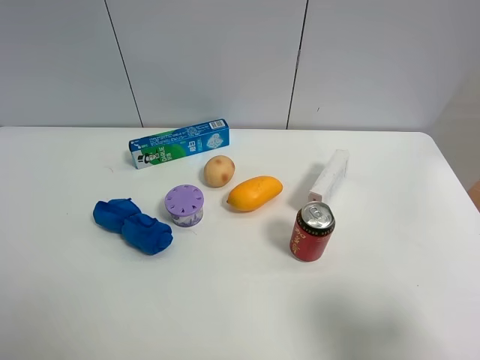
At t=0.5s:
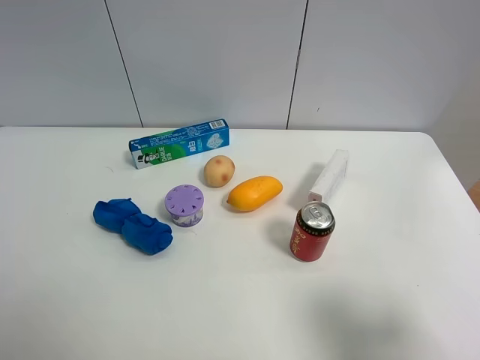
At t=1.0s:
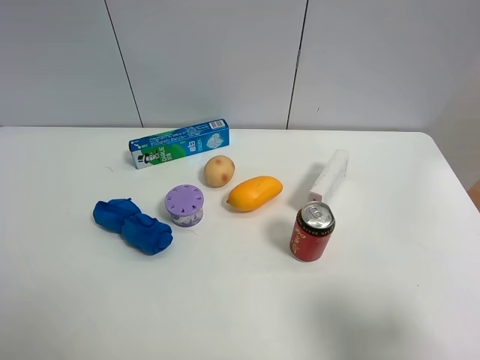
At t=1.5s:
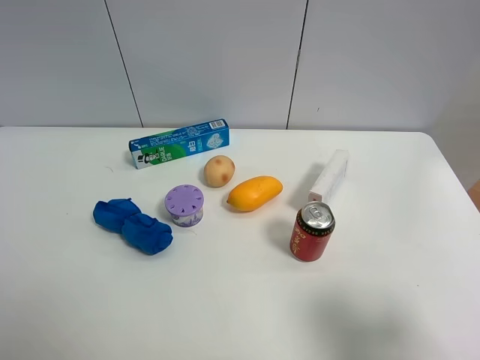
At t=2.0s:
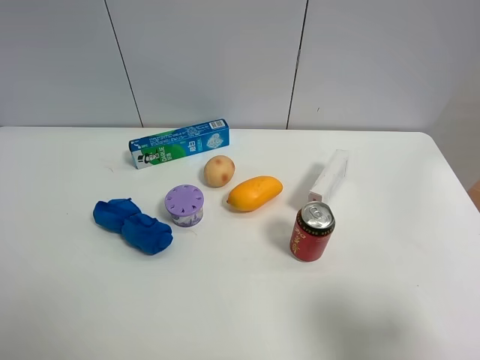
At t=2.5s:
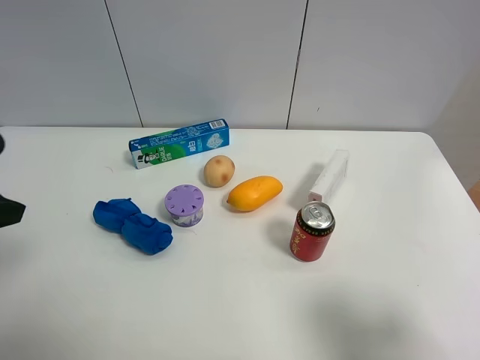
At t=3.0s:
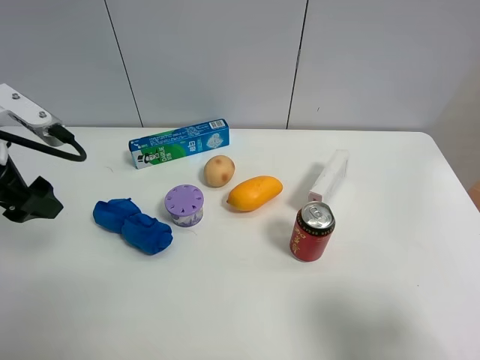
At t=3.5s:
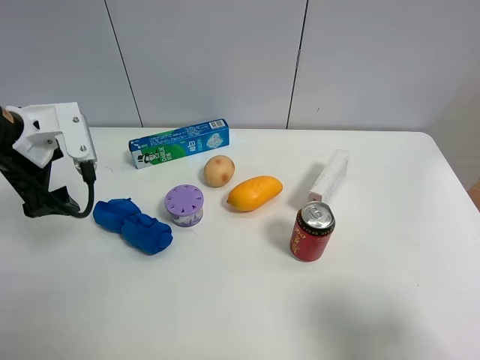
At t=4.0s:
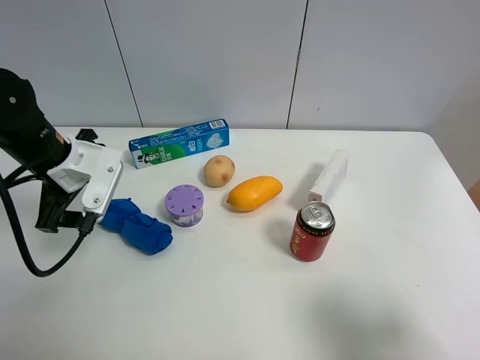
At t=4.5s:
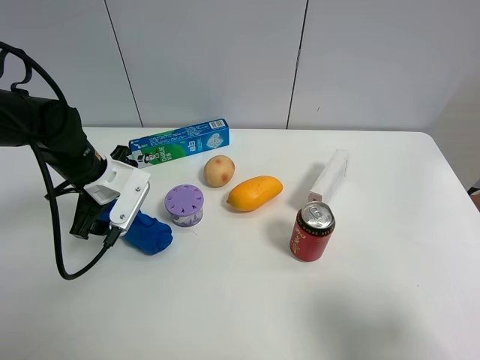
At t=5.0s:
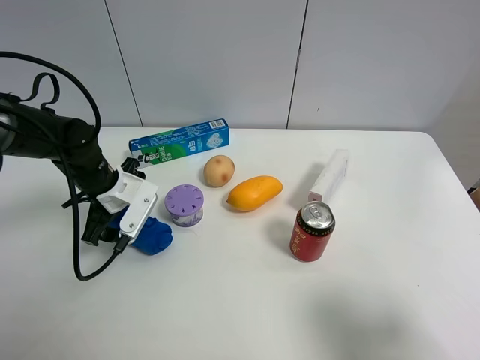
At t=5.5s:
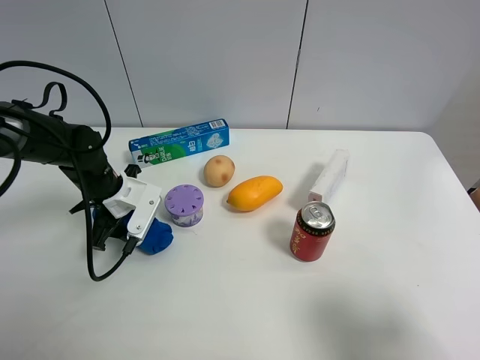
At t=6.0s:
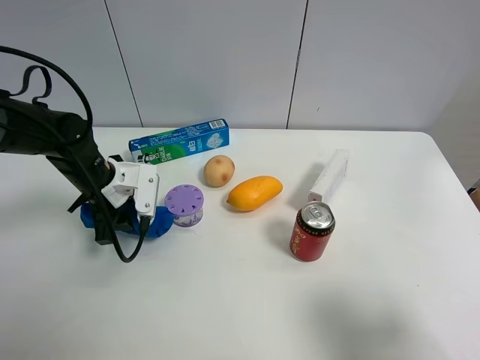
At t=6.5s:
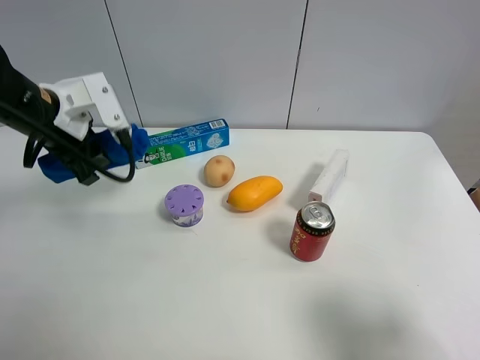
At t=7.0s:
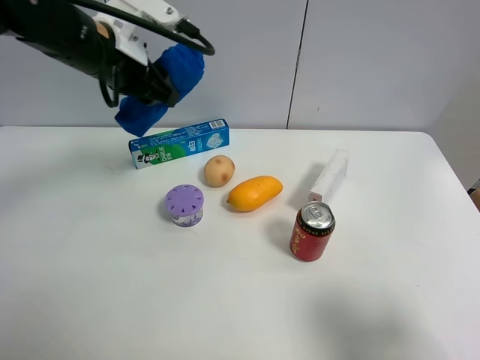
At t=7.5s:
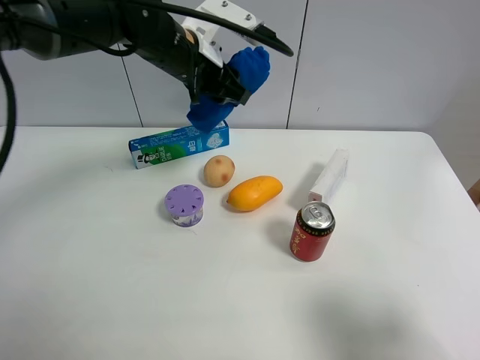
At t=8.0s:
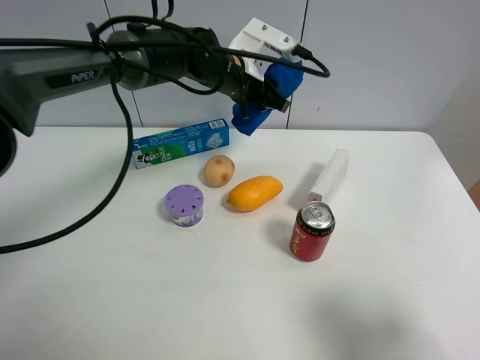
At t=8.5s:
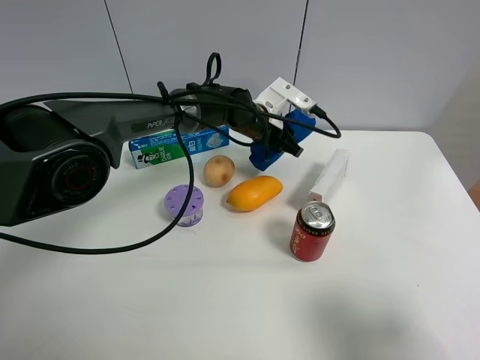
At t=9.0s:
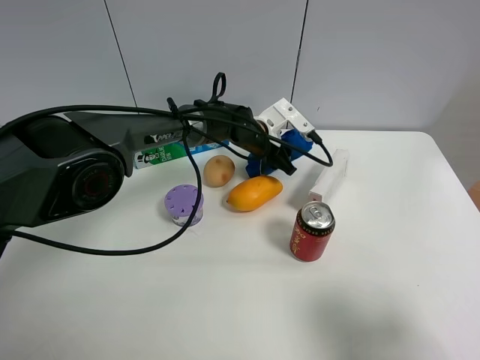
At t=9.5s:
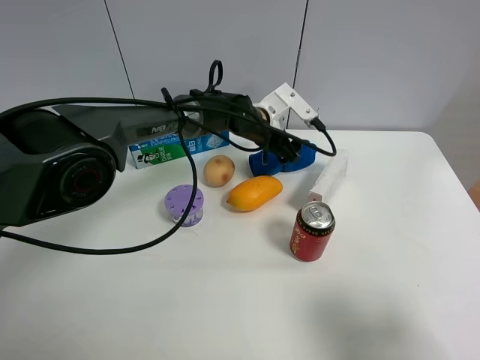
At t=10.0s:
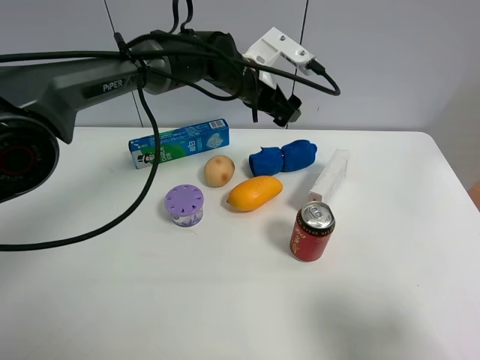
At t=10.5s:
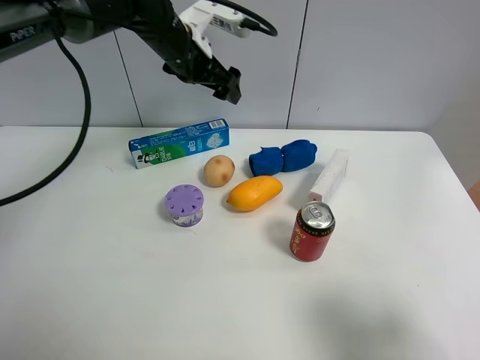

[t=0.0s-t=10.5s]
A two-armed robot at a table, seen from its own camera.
Task of the whole recording: the gripper move the object.
Step, t=0.0s to t=5.5s: Grasp the blue towel with the left gripper.
Step, t=6.0s to t=9.5s: Place the blue towel on the table with the left gripper.
t=2.0s to t=4.0s: The left gripper heads forward and downward, covering approximately 30 cm.
t=4.0s to t=6.5s: The left gripper goes about 5 cm upward, and closes up.
t=6.5s to t=8.5s: The left gripper travels to the right, forward and downward by roughly 30 cm.
t=8.5s to t=10.5s: The left gripper travels upward and to the left by about 20 cm, and opens its fingers.

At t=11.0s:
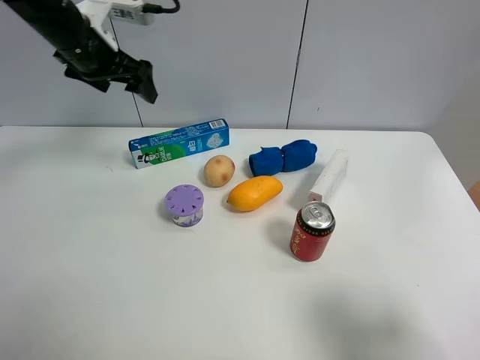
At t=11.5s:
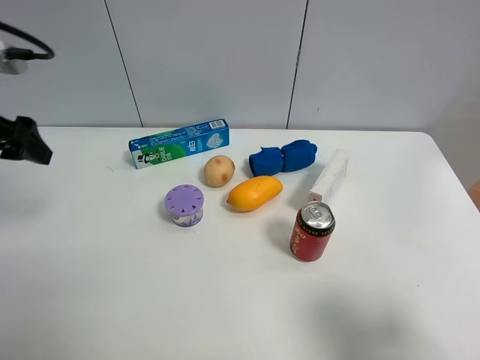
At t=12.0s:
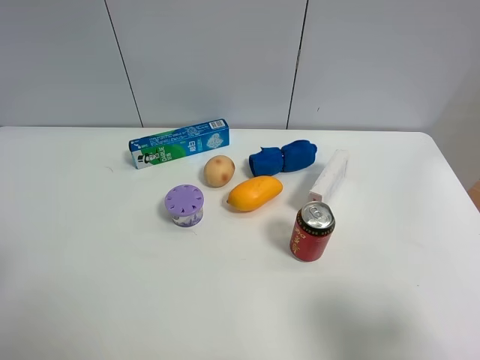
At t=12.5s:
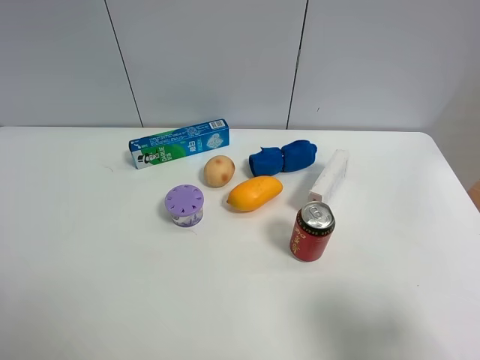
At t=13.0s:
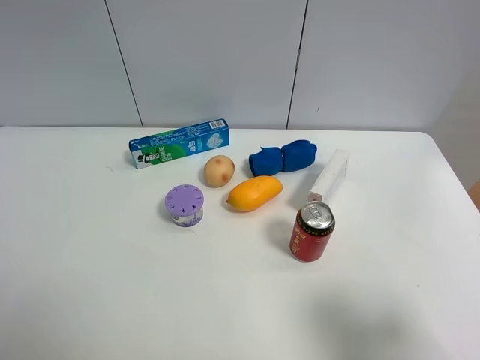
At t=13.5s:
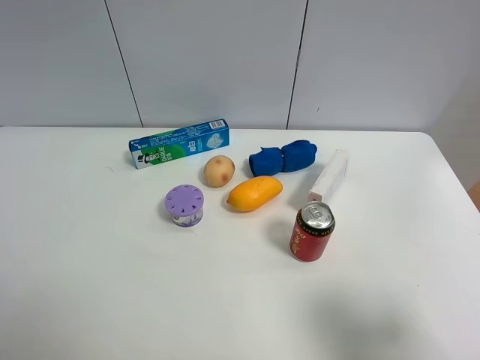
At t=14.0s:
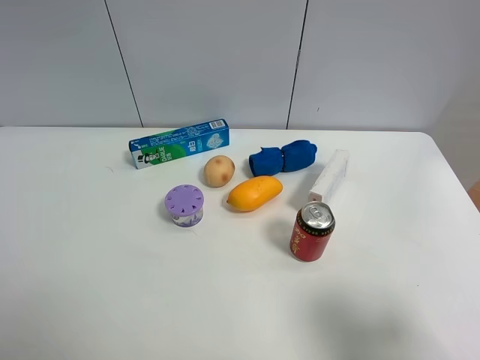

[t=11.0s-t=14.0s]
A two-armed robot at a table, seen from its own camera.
Task of the whole recording: the gripper move the object.
t=11.0s to t=12.5s: The left gripper shifts some 40 cm backward.

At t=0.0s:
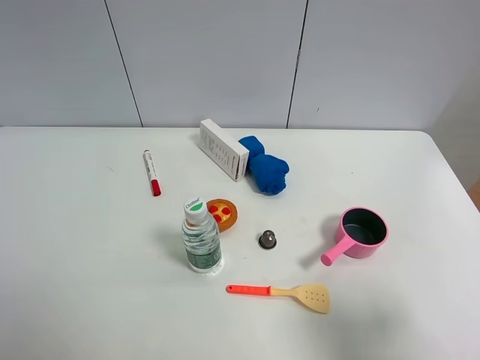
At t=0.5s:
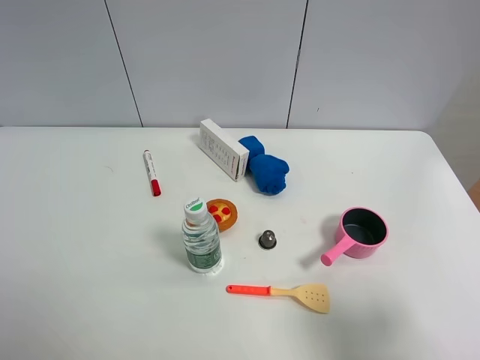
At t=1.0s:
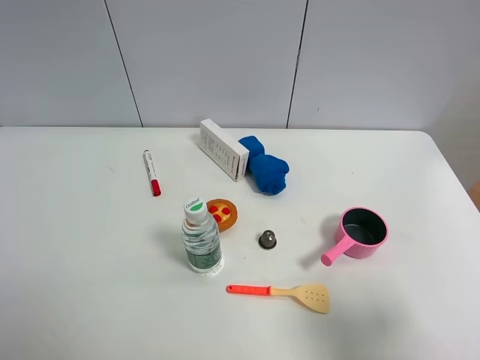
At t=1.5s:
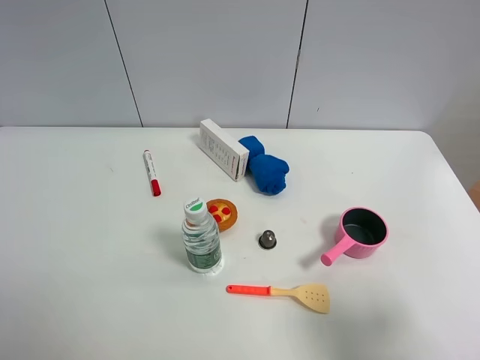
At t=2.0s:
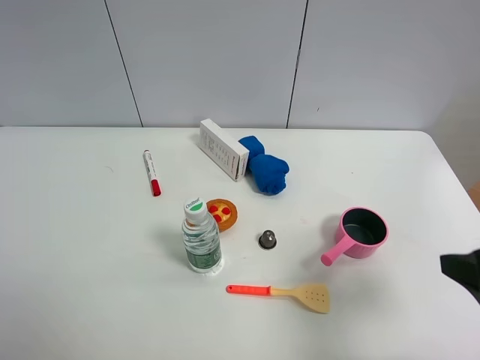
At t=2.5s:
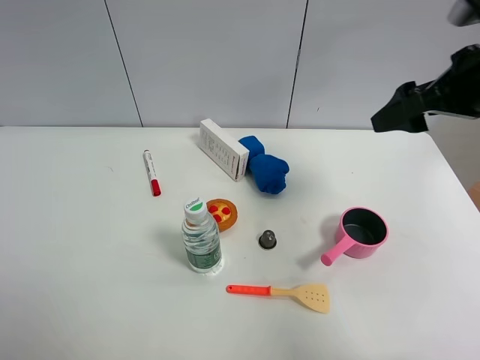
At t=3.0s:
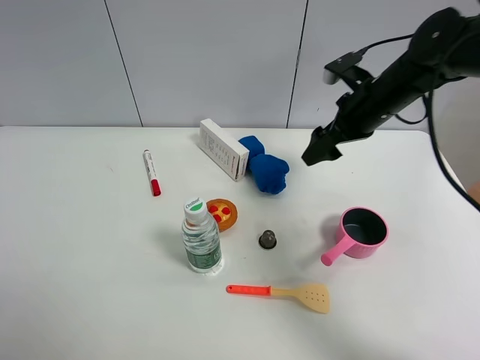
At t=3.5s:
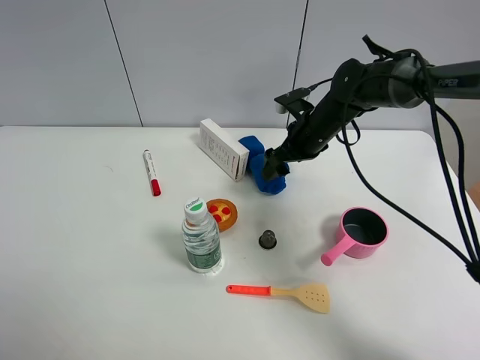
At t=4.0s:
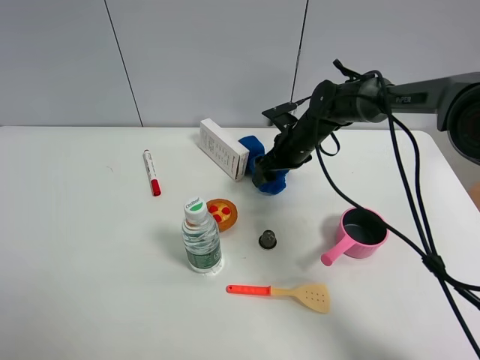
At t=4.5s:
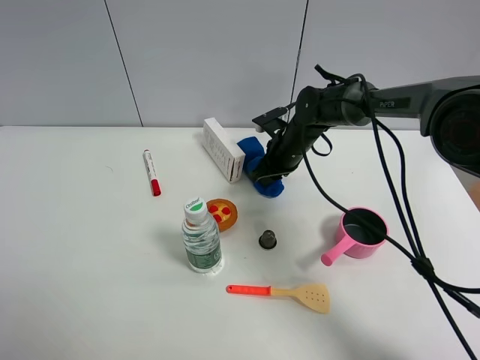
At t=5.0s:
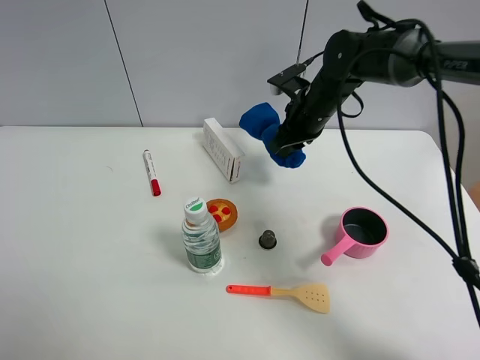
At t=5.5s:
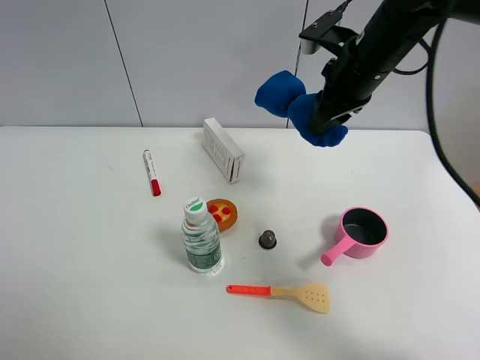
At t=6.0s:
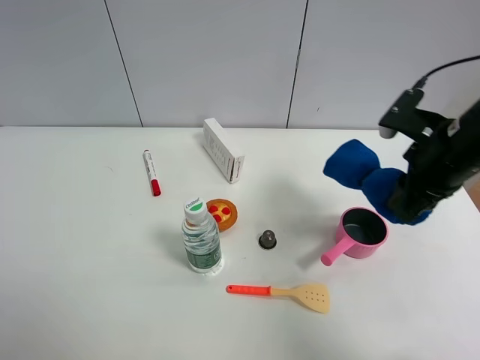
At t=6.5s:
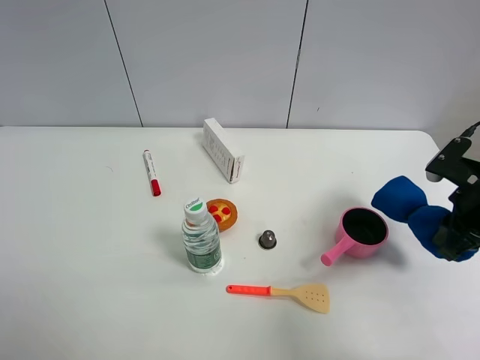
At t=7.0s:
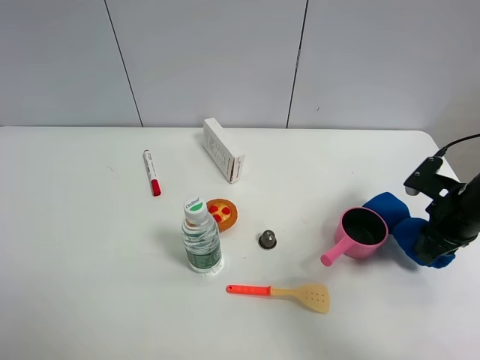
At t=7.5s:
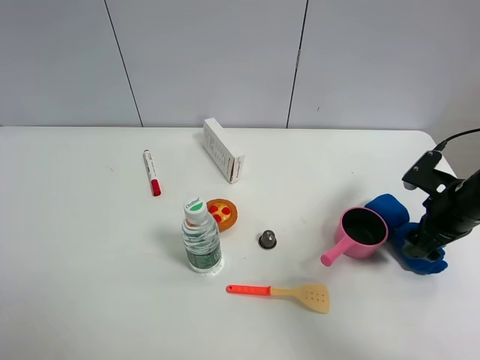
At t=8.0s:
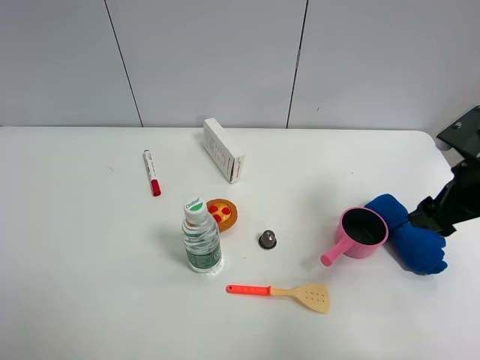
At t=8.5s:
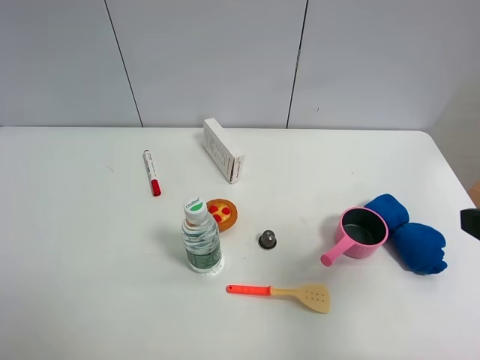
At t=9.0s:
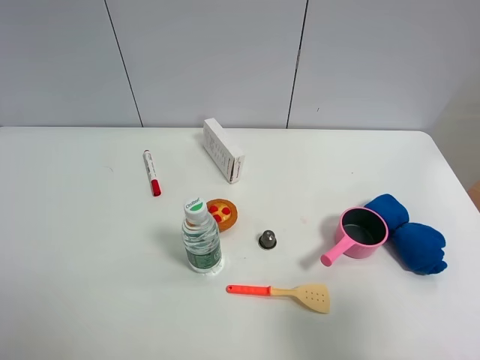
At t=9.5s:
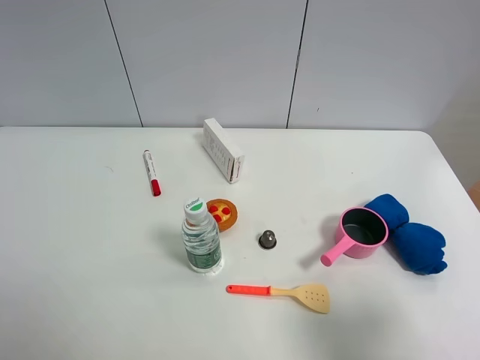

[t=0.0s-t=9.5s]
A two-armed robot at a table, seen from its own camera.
Task of the whole recording: the gripper move the object.
Step, t=0.0s to t=4.0s: Grasp the blue towel with the right gripper.
Step, t=4.5s to t=7.5s: Place the blue towel on the table with the right gripper.
t=0.0s to t=2.0s: The right gripper heads forward, covering about 10 cm.
t=2.0s to t=4.0s: The right gripper shifts some 40 cm forward, to the left and downward.
t=4.0s to t=5.5s: The right gripper travels upward and backward by about 20 cm, and closes.
t=5.5s to t=7.5s: The right gripper is displaced to the right, downward and backward by roughly 25 cm, and opens its fingers.
t=7.5s to t=9.5s: The right gripper is displaced backward and upward by some 30 cm.

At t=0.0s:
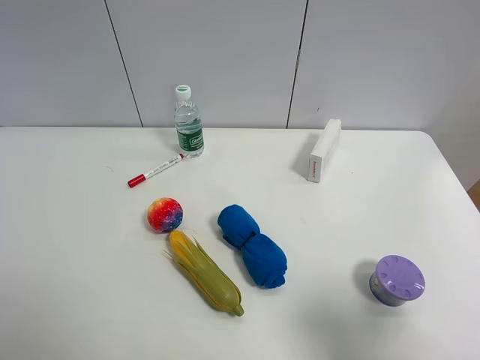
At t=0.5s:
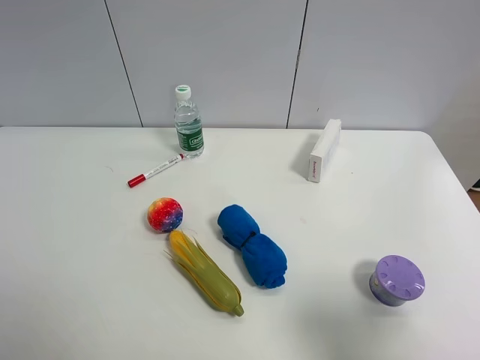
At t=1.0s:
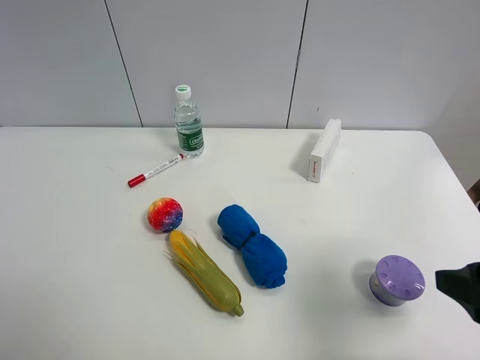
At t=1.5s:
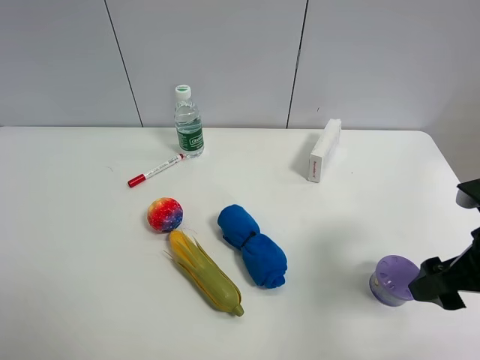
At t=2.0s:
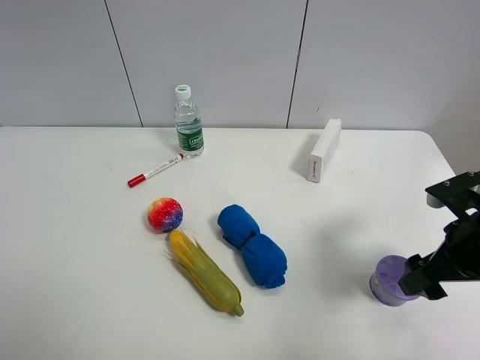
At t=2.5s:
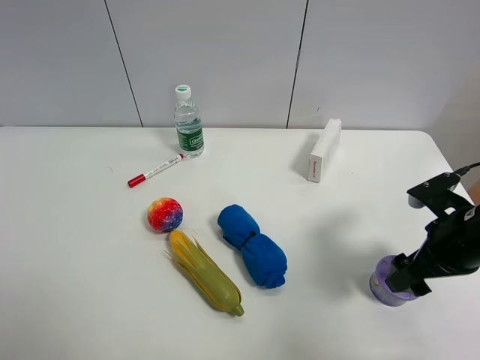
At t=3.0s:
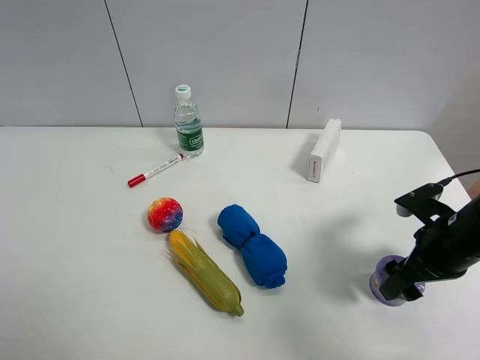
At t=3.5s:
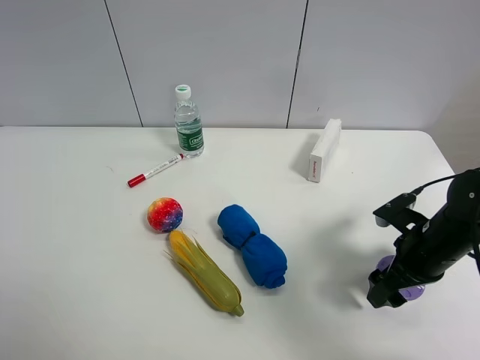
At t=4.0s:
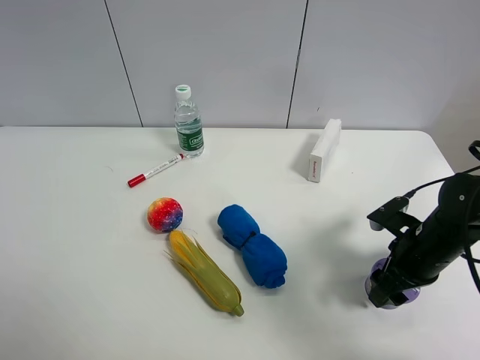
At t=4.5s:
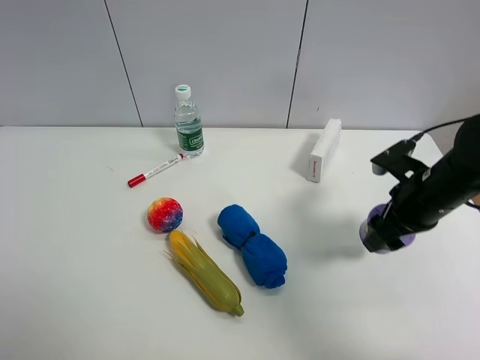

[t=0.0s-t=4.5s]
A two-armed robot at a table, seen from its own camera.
Task of the whole recording: the gripper move the object.
Step, t=0.0s to t=3.5s: Grasp the Incense box with the right gripper.
t=0.0s to t=2.0s: The right gripper goes about 20 cm forward and downward.
t=2.0s to t=4.5s: The right gripper moves forward, some 10 cm, and closes up.
